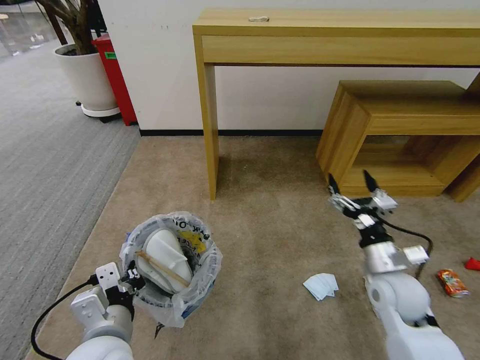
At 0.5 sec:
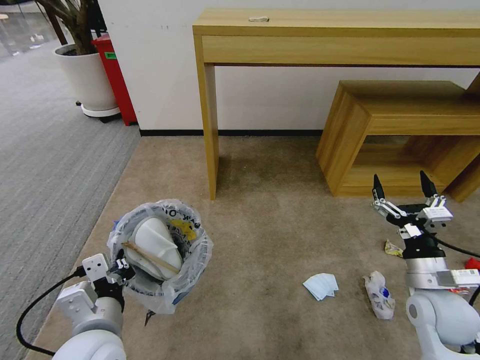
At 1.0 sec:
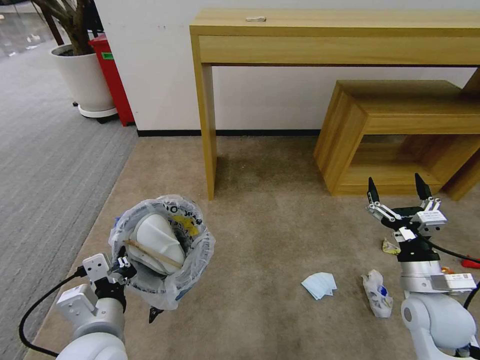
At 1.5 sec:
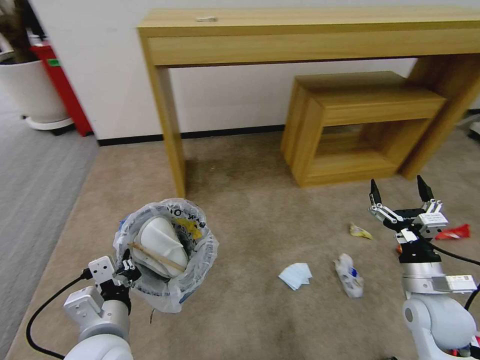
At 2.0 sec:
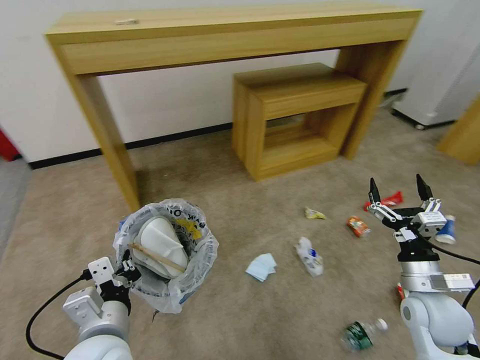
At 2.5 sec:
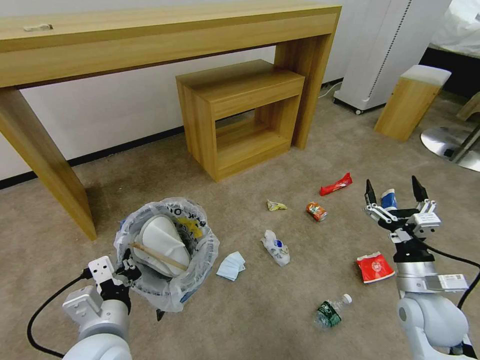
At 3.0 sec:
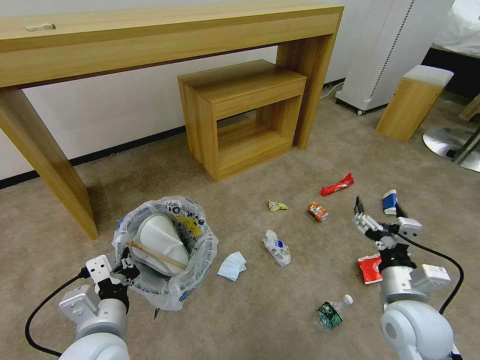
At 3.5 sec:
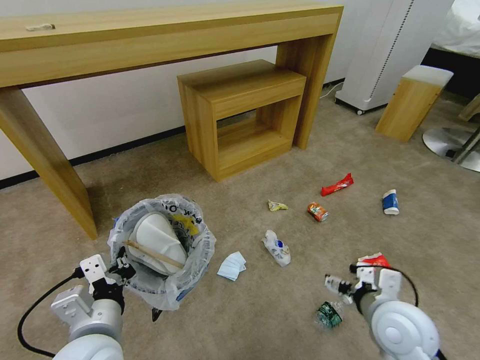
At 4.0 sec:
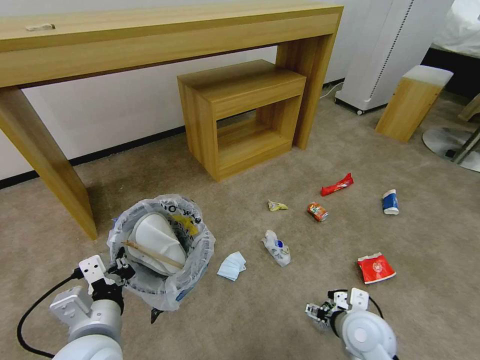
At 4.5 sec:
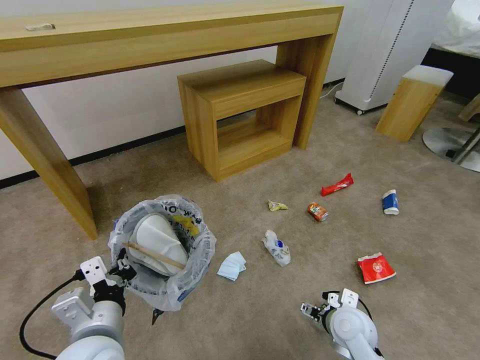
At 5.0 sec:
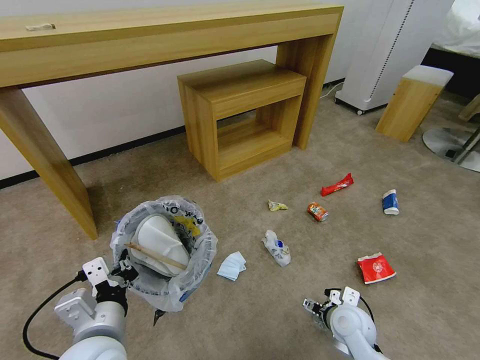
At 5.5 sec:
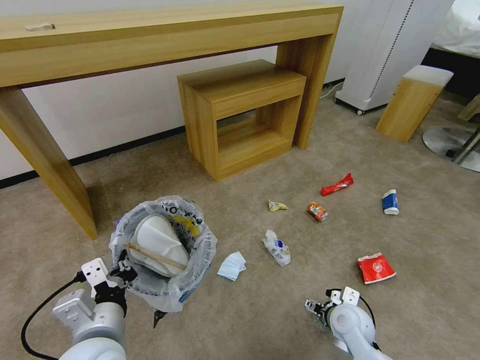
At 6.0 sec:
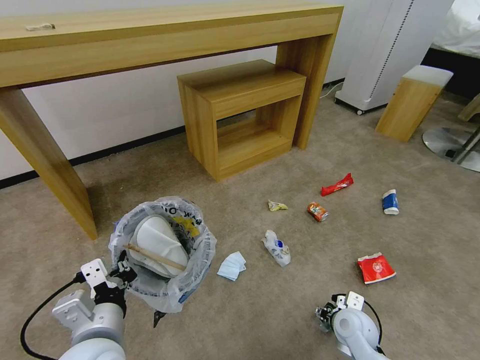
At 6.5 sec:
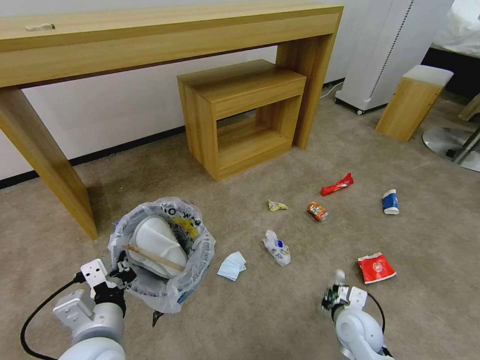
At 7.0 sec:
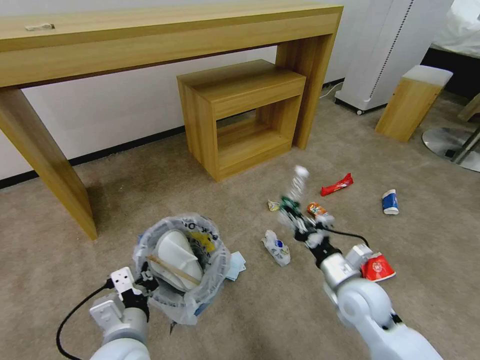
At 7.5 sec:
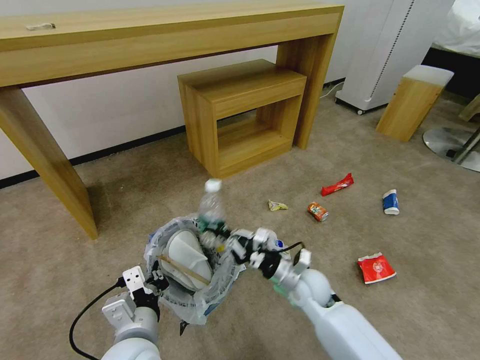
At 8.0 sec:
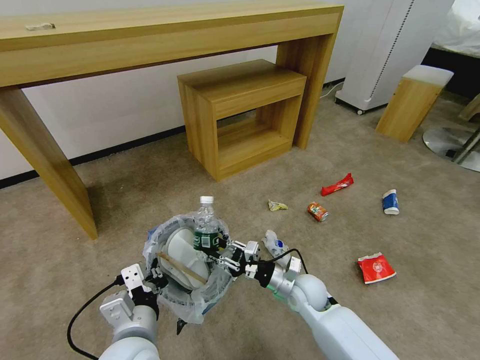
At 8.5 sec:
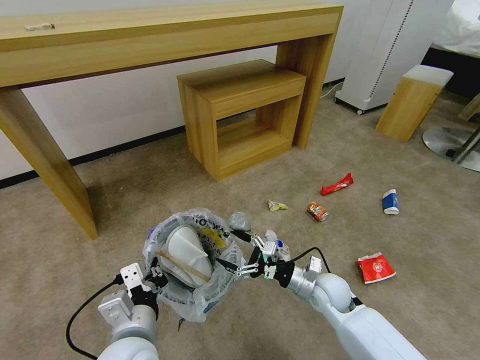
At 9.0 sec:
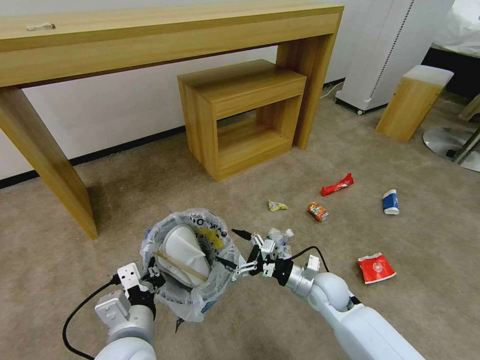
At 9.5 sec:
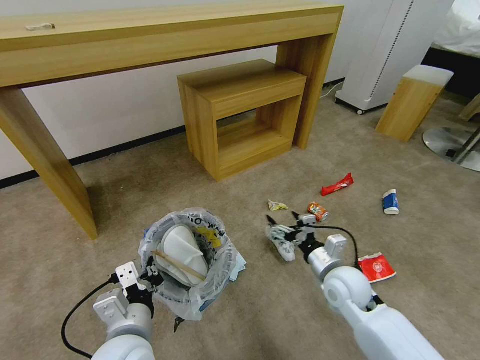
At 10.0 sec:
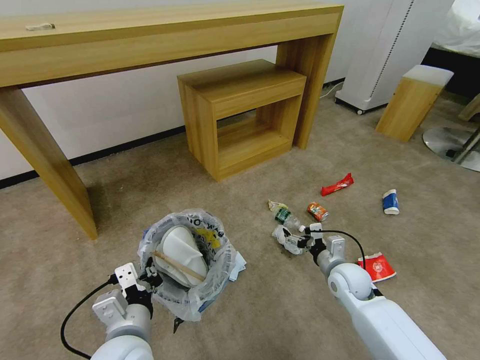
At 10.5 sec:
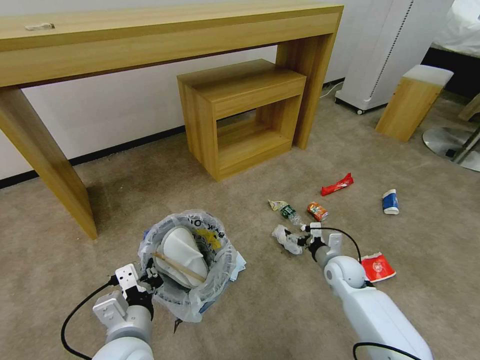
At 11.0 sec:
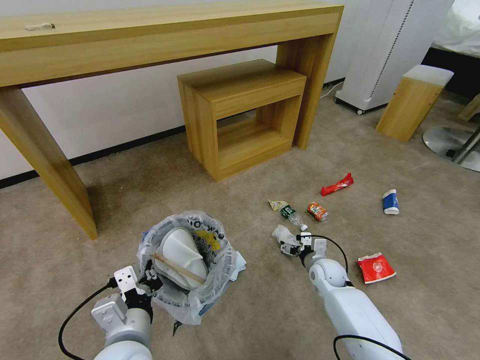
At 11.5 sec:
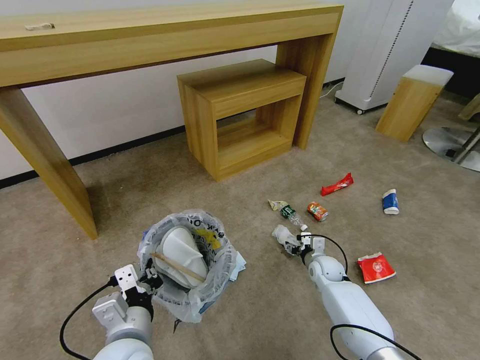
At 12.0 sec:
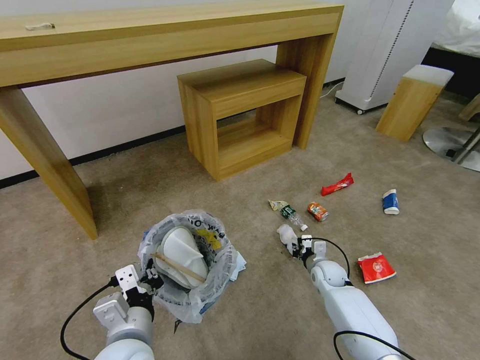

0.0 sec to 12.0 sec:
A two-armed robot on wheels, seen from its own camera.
Task of the whole recording: Pick up the trash bin and place the garbage on the floor into it.
0.0 sec to 2.0 sec: The right gripper is displaced to the right by some 5 cm.
2.0 sec to 4.0 sec: The right gripper heads to the left and downward, covering about 10 cm.
4.0 sec to 6.0 sec: The right gripper is displaced downward by about 10 cm.
6.0 sec to 8.0 sec: The left gripper moves about 5 cm; the right gripper goes about 15 cm to the left and forward, moves roughly 15 cm upward and comes back, and closes, then reopens.
8.0 sec to 10.0 sec: The right gripper heads to the right, covering roughly 10 cm, and opens its fingers.
10.0 sec to 12.0 sec: The right gripper travels downward and forward by approximately 10 cm, and closes.

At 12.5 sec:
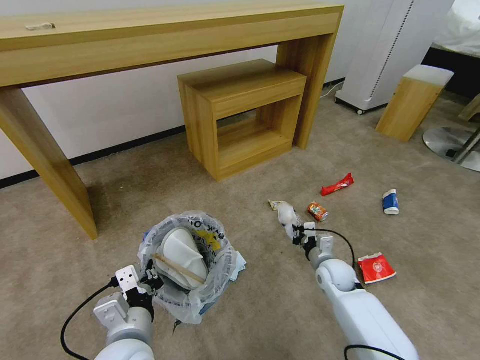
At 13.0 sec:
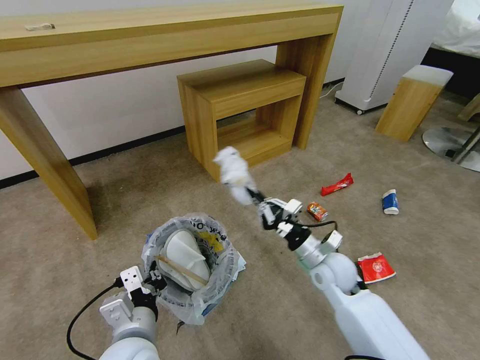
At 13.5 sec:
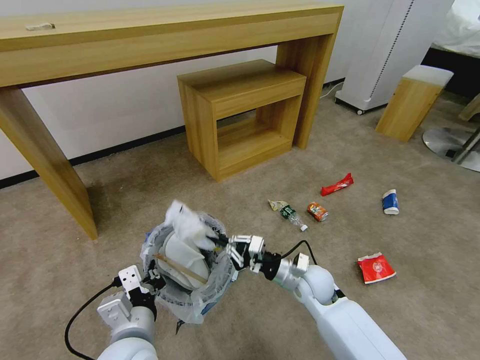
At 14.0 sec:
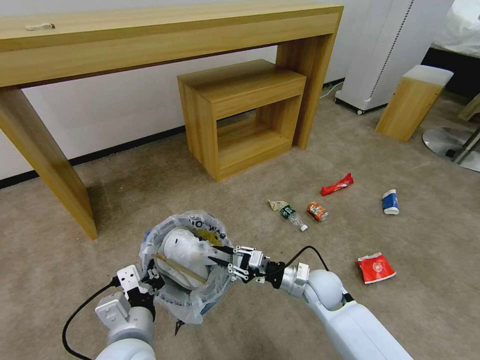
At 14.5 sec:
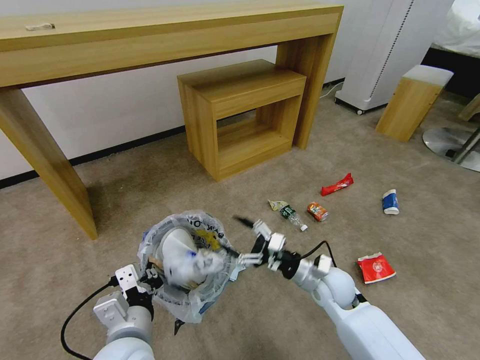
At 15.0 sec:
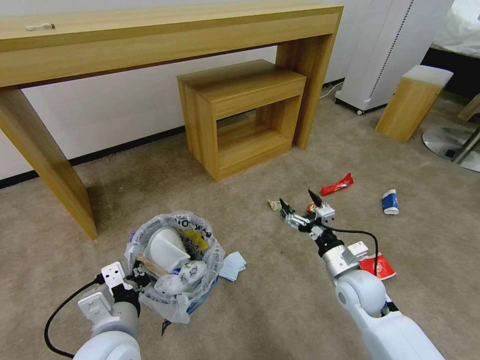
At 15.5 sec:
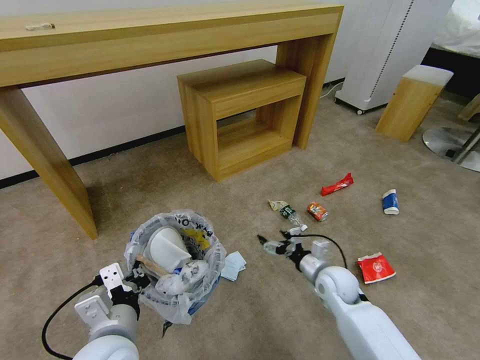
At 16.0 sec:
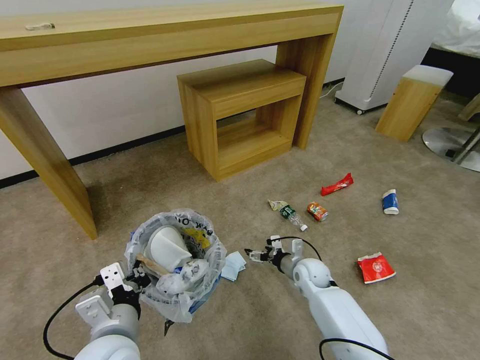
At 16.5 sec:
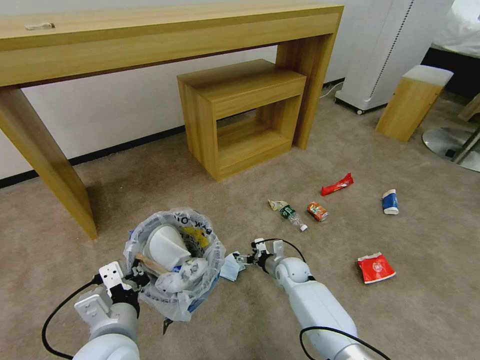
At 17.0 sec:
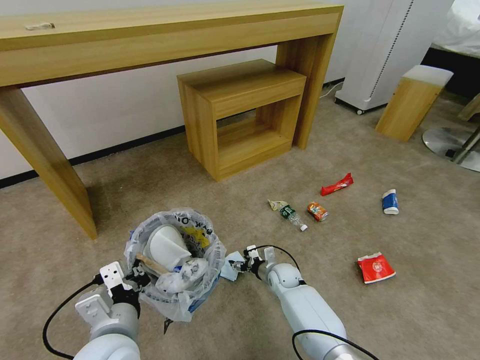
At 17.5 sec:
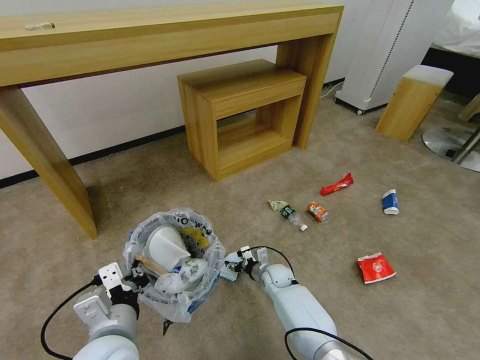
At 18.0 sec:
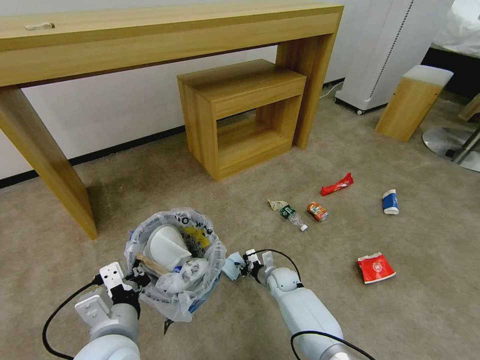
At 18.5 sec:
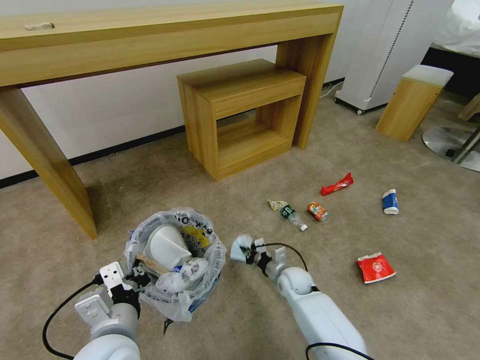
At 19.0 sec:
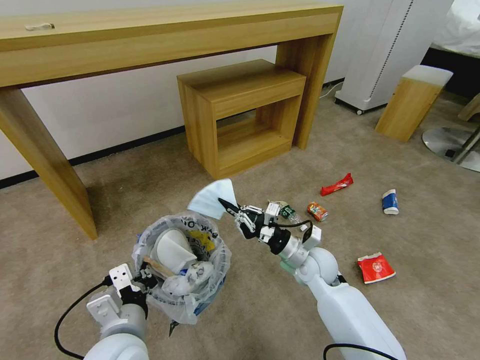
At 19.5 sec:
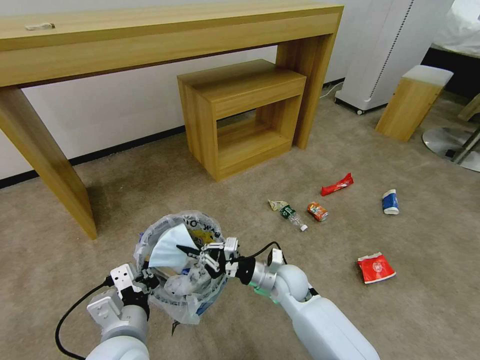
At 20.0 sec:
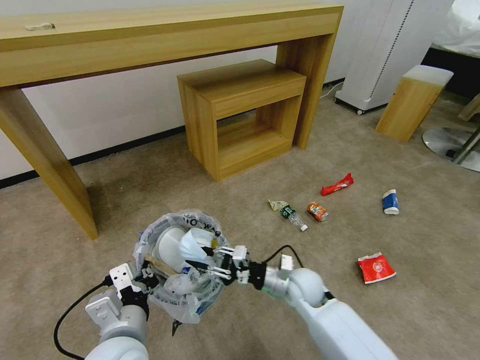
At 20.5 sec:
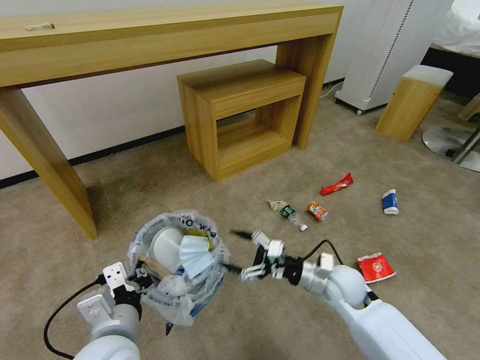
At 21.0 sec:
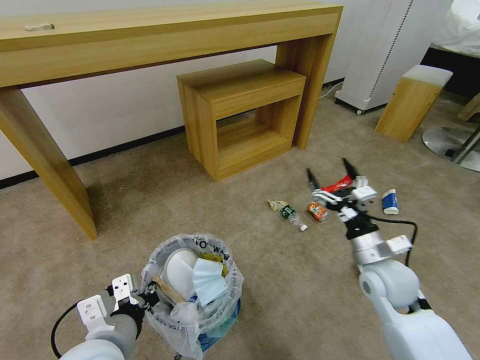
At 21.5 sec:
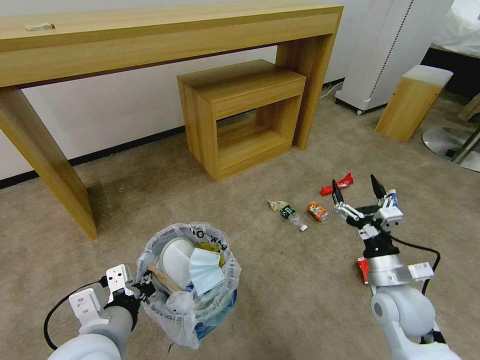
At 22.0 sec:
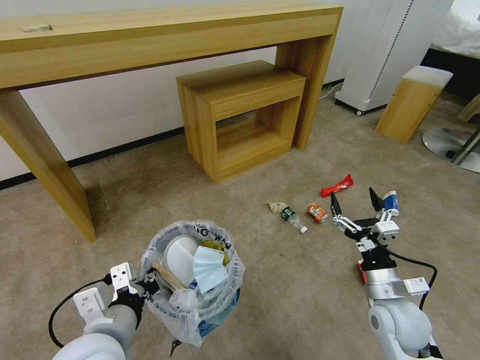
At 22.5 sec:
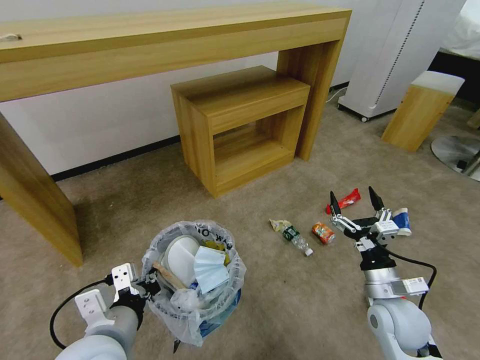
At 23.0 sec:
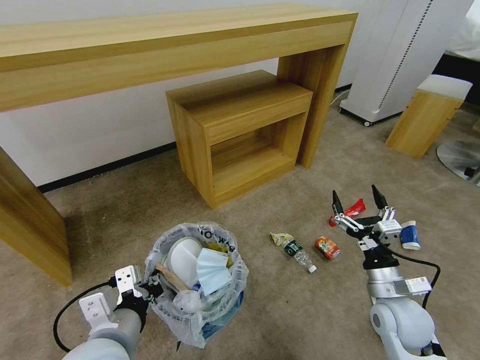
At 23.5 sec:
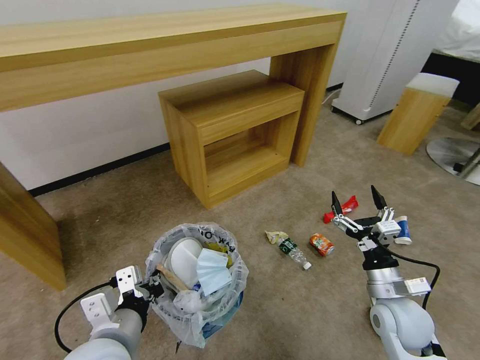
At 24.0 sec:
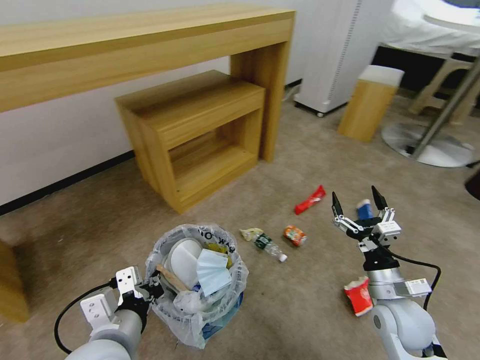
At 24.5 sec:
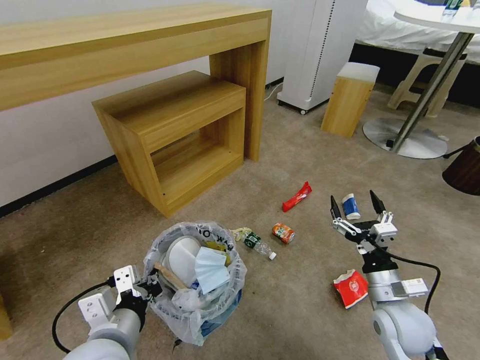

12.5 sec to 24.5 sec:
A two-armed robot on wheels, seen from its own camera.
Task of the whole recording: Pick up the trash bin and place the garbage on the floor into it.
12.5 sec to 14.5 sec: The right gripper is displaced upward, backward and to the left by roughly 10 cm, and opens.
14.5 sec to 16.5 sec: The right gripper heads downward, forward and to the left, covering about 15 cm.
16.5 sec to 18.5 sec: The right gripper closes its fingers.
18.5 sec to 20.5 sec: The right gripper swings up and down, about 15 cm each way, with 2 reversals, and opens.
20.5 sec to 22.5 sec: The right gripper travels backward and to the right by approximately 10 cm.

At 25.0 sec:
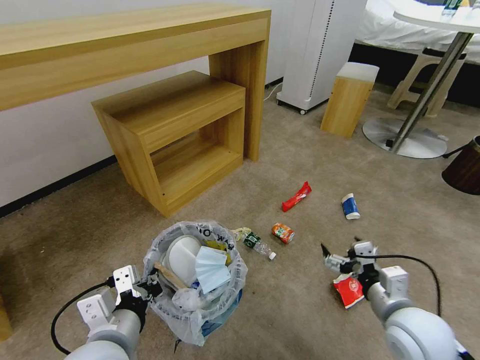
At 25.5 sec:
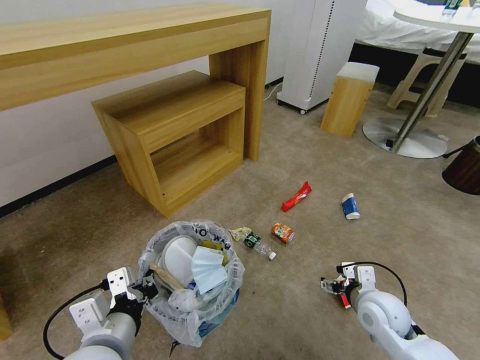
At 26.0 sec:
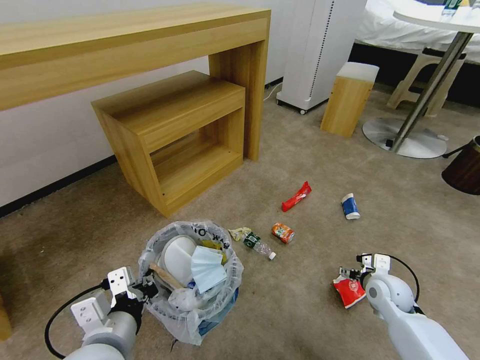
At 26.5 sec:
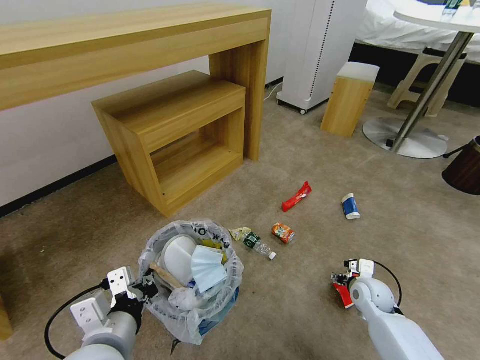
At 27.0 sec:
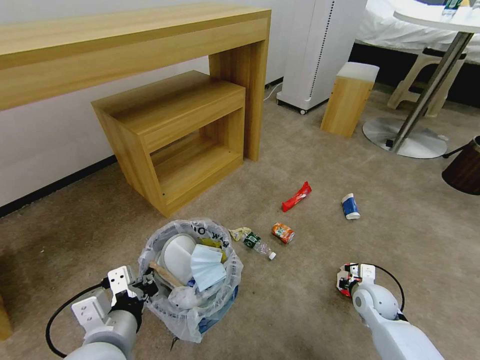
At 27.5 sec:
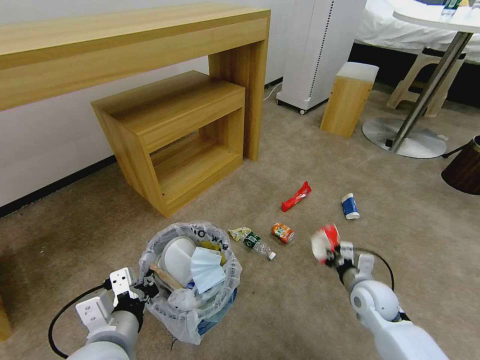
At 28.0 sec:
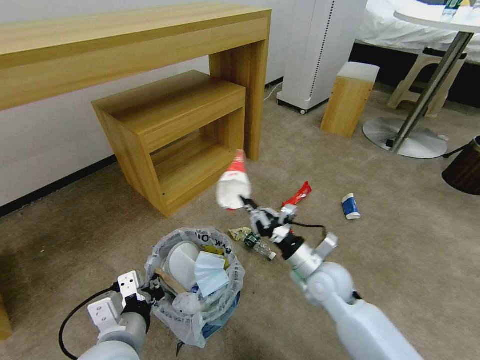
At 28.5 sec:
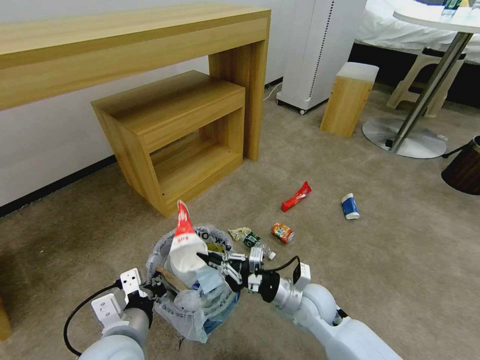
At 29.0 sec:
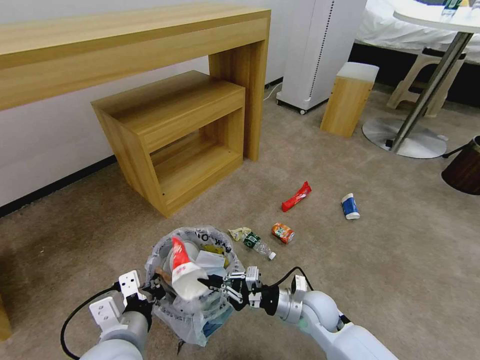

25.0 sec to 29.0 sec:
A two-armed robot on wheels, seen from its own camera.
Task of the whole recording: Pick up the trash bin and place the garbage on the floor into it.
25.0 sec to 27.0 sec: The right gripper moves downward and forward, approximately 20 cm, and closes.
27.0 sec to 29.0 sec: The right gripper moves to the left, approximately 20 cm.
